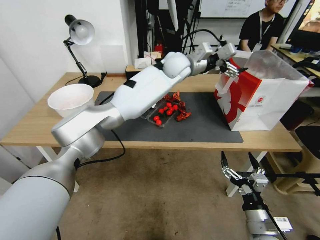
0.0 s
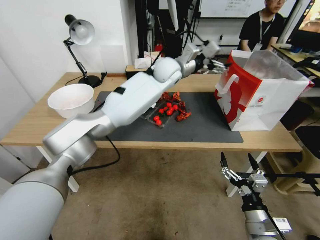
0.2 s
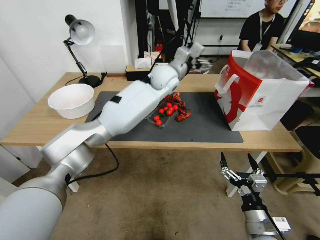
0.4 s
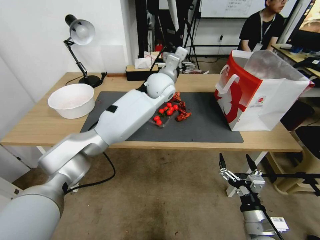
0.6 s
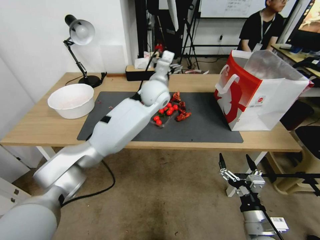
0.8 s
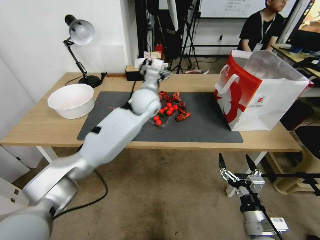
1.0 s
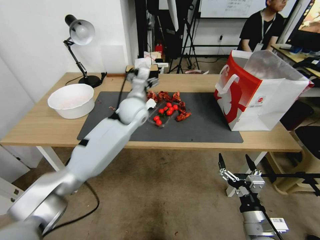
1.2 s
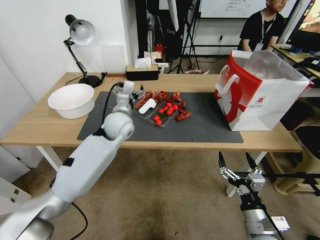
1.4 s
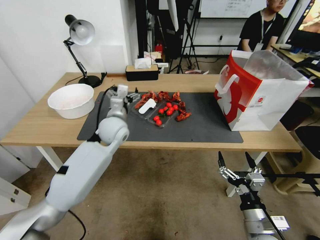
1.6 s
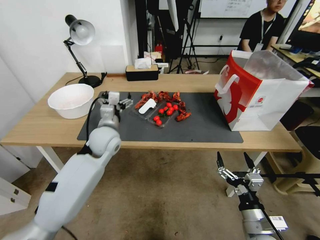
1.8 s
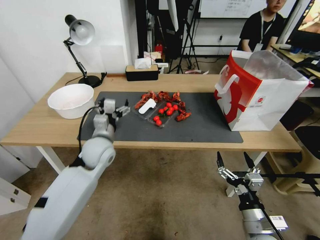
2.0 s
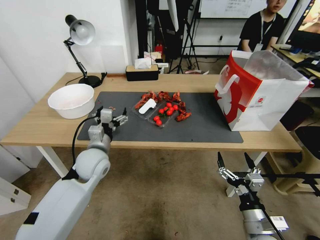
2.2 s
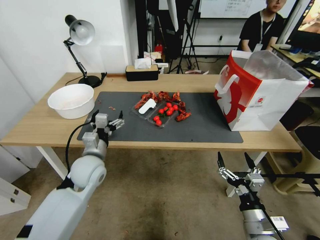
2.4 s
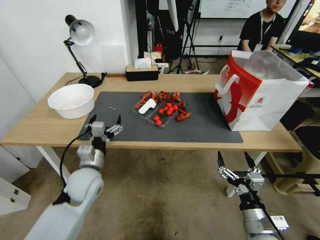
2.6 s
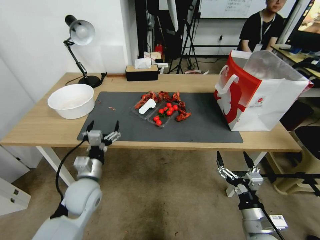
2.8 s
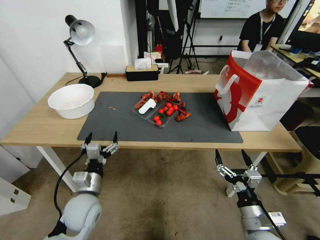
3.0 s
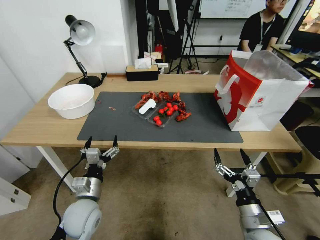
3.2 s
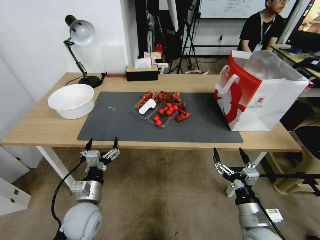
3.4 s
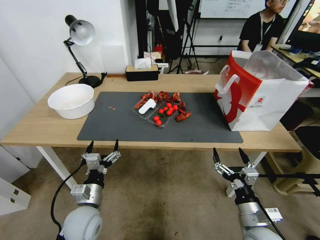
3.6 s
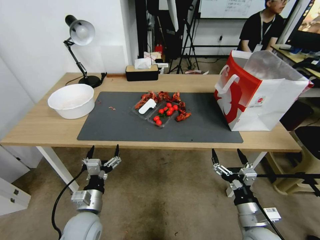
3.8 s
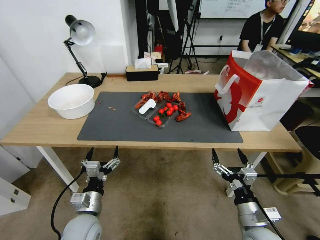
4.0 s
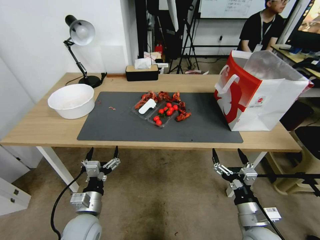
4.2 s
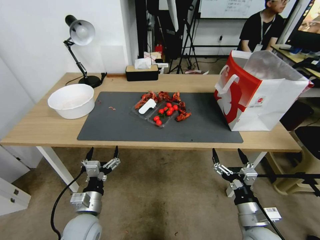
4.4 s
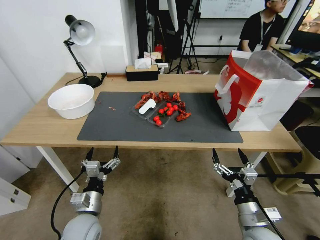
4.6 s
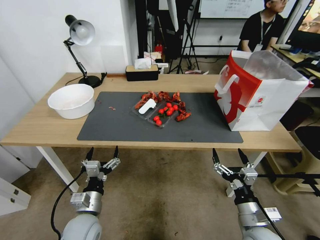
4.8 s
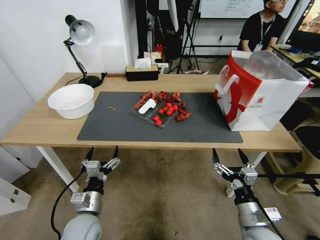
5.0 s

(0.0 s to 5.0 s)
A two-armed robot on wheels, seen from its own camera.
0.0 s - 1.6 s: The left gripper heads to the left, downward and backward, covering some 30 cm.
1.6 s - 3.4 s: The left gripper shifts about 25 cm backward and downward.
3.4 s - 5.0 s: The grippers move only a little.
